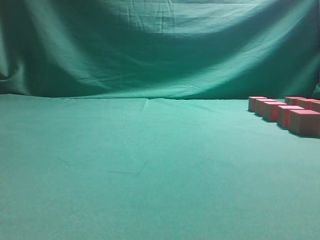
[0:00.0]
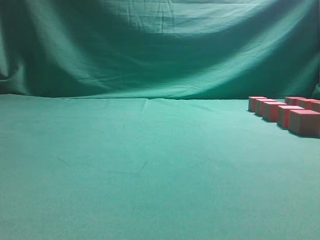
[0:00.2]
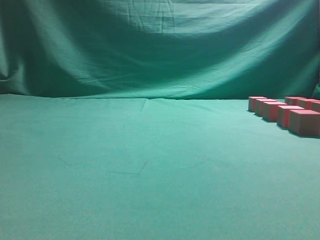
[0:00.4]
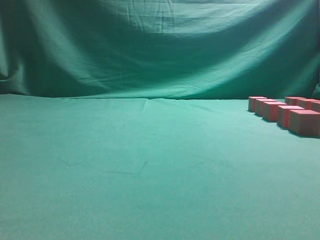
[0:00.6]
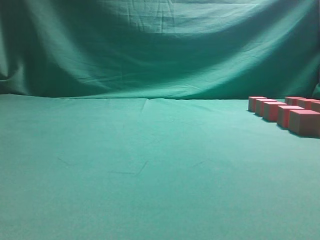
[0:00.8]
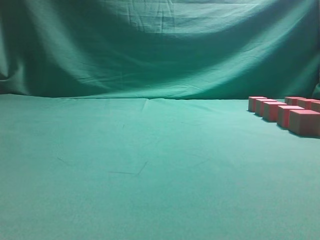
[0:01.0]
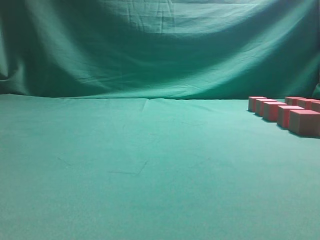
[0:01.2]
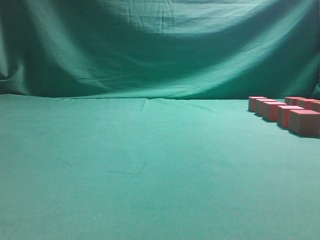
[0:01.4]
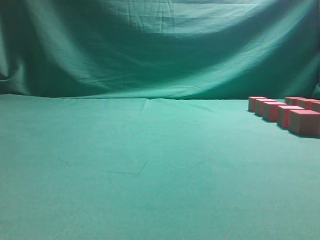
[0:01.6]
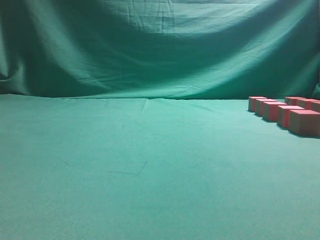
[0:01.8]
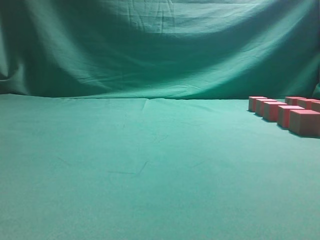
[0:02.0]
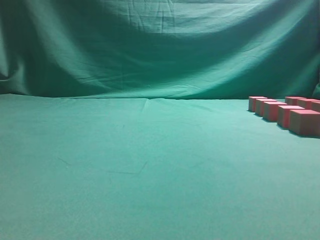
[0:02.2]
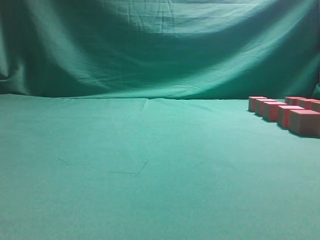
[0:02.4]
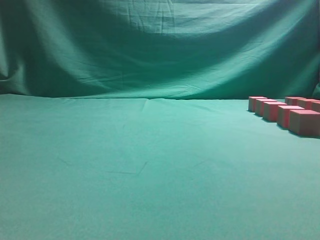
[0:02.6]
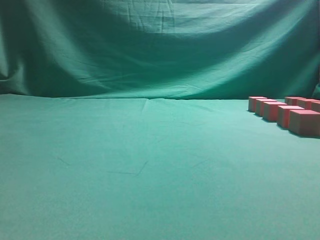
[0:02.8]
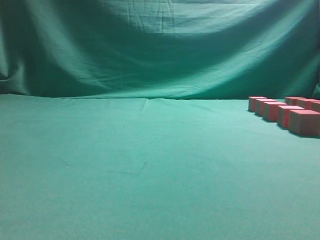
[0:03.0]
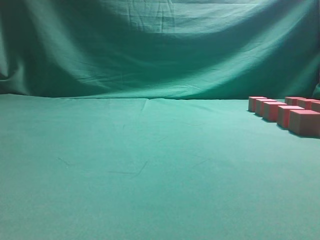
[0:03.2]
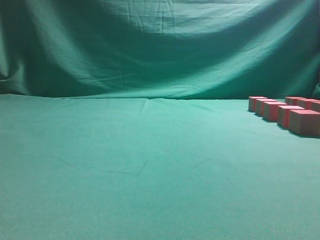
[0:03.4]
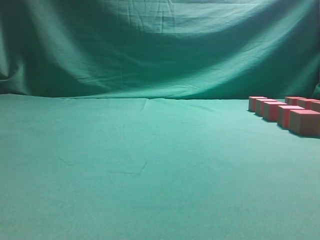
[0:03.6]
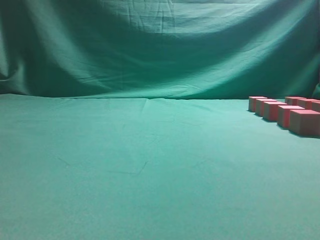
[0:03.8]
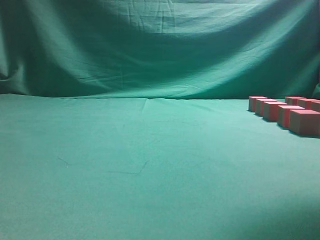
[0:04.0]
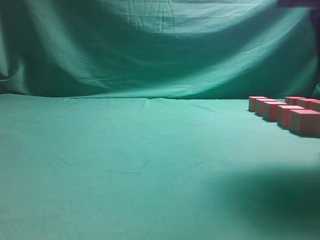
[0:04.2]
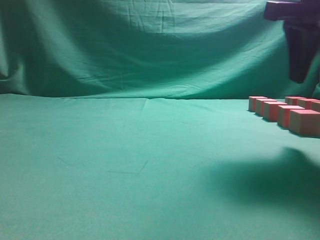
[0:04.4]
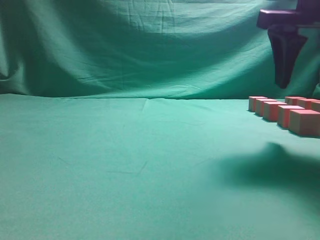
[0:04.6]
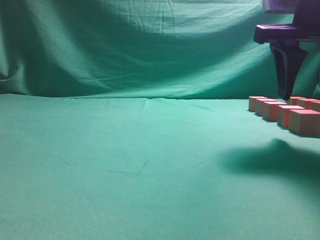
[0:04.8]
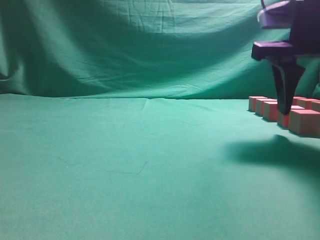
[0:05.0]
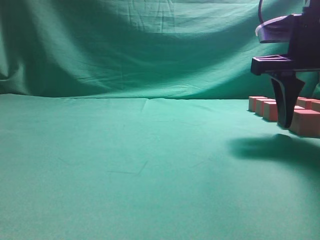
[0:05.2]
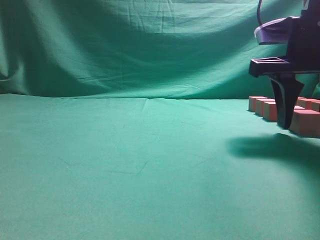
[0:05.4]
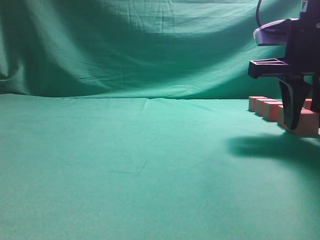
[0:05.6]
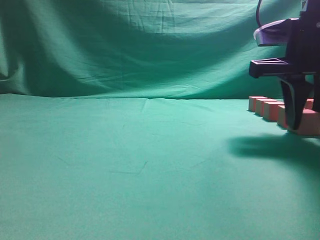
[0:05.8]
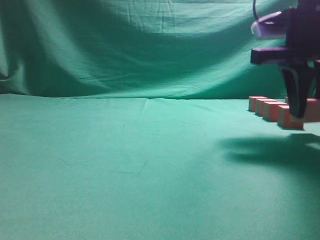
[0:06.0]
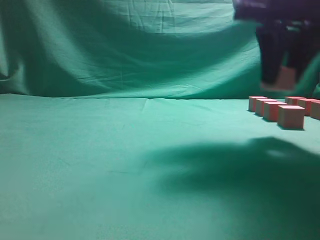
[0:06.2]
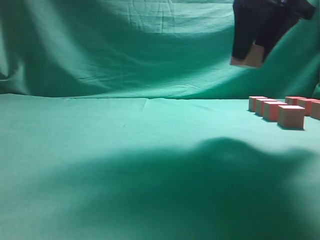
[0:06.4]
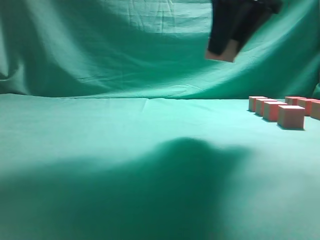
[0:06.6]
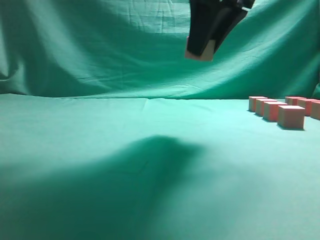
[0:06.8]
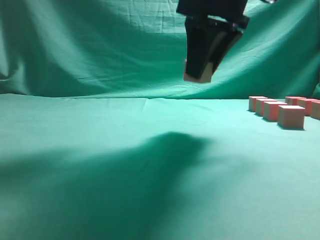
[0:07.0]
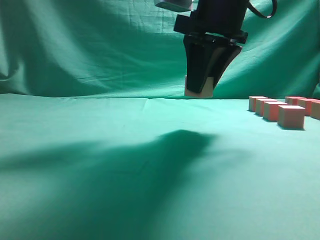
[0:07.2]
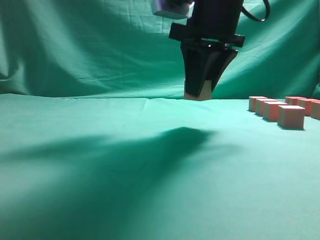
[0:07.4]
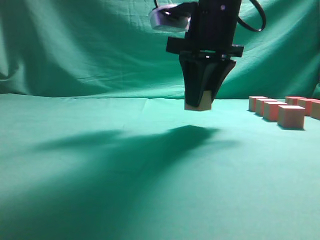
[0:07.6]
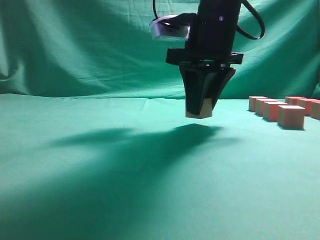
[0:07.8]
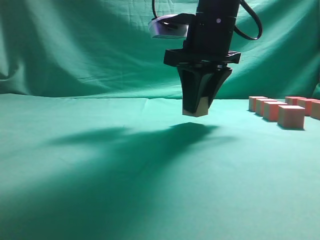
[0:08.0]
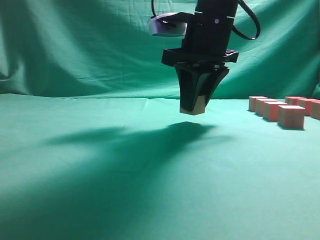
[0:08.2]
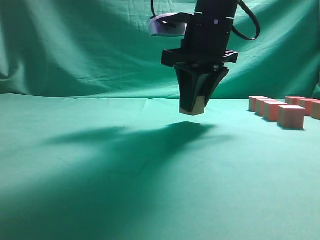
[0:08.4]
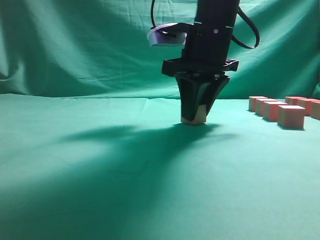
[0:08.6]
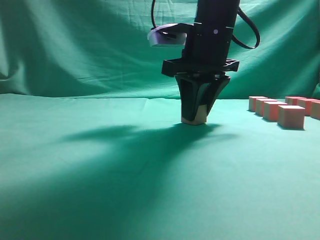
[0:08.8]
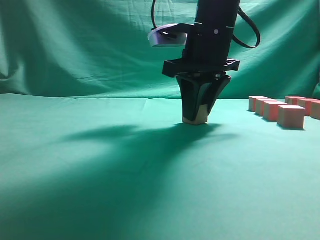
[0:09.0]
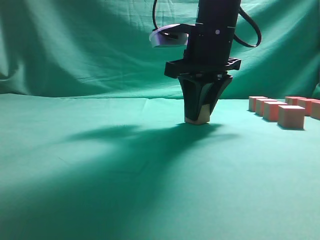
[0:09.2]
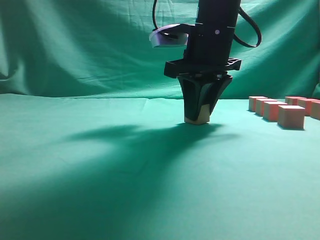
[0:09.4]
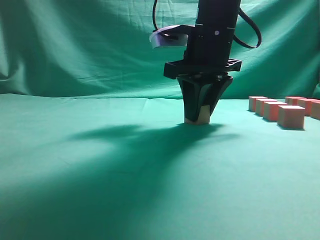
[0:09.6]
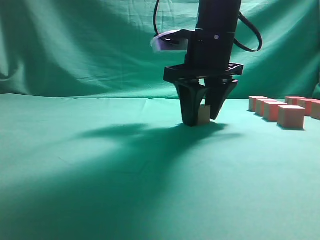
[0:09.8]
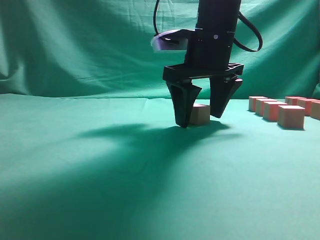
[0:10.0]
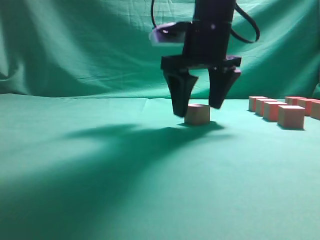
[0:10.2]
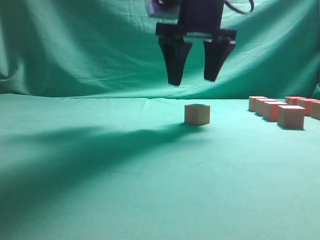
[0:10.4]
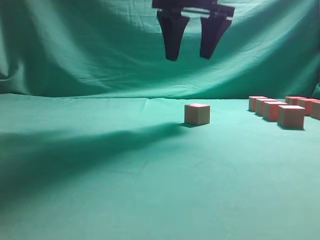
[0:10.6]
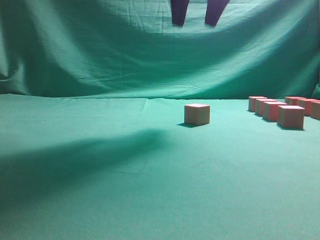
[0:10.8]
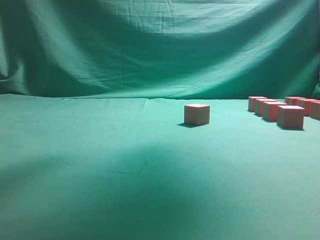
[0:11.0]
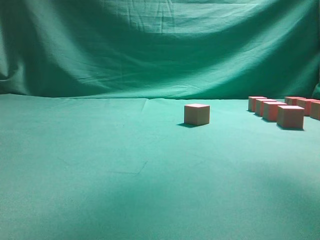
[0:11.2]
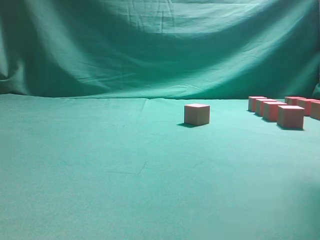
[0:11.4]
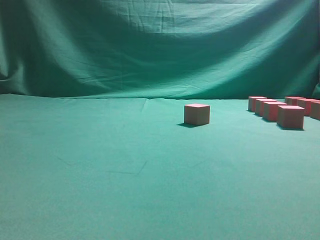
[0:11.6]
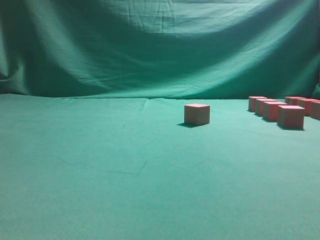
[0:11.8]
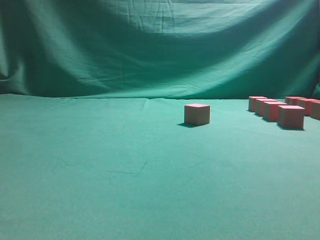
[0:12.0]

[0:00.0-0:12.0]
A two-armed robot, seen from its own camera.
Task of the whole recording: pick up the multiple cubes in two columns one by one and place them in another position on the table.
Step, 0:00.0 to 0:06.4: Pick up the block on the table.
Step, 0:06.6 to 0:10.6: Place the block at the correct position to assemble the letter S.
0:03.0 to 0:04.4: The right gripper heads forward and downward, covering roughly 20 cm, and opens its fingers.
0:06.0 to 0:07.6: The right gripper is displaced to the left by roughly 10 cm.
0:07.6 to 0:09.0: There are only small adjustments of the grippers.
0:09.0 to 0:10.4: The right gripper goes some 5 cm upward, and opens its fingers.
0:10.4 to 0:12.0: The right gripper is displaced to the right and backward by about 25 cm.

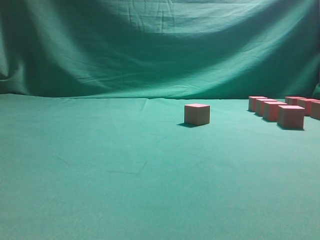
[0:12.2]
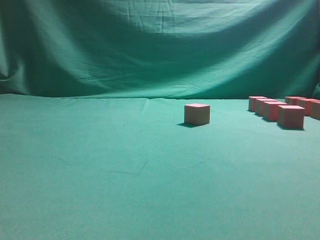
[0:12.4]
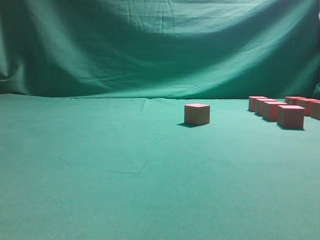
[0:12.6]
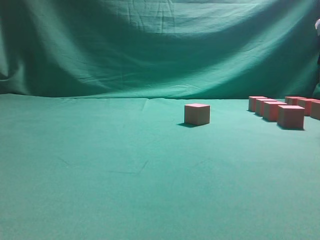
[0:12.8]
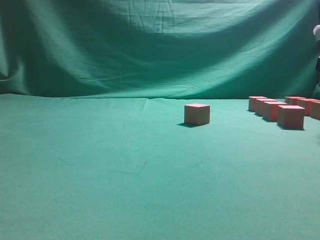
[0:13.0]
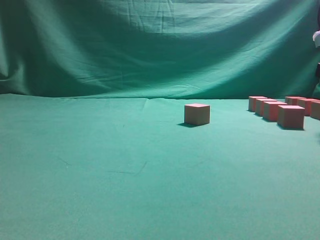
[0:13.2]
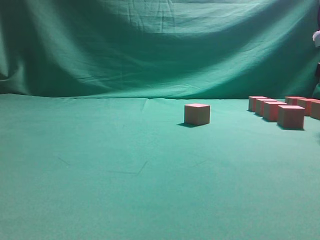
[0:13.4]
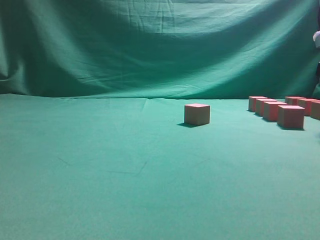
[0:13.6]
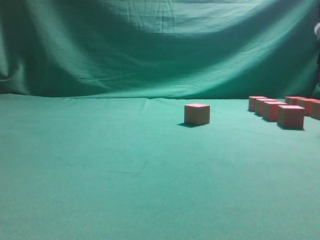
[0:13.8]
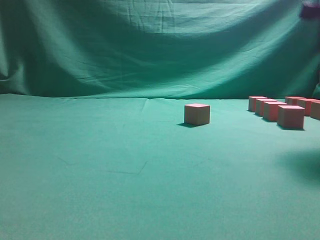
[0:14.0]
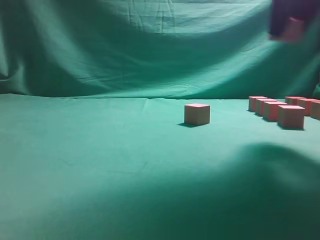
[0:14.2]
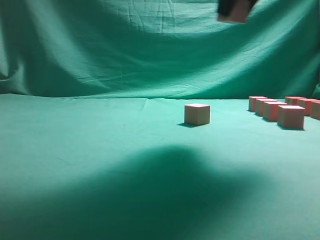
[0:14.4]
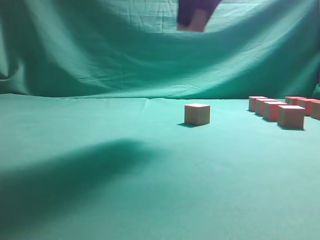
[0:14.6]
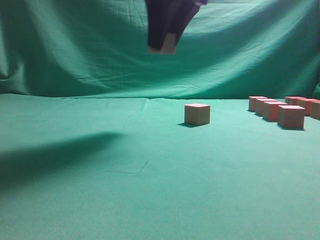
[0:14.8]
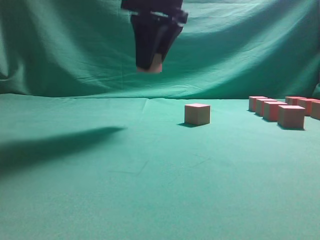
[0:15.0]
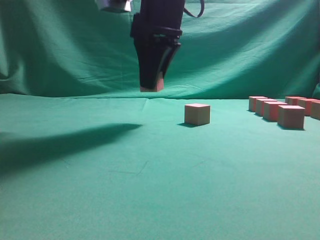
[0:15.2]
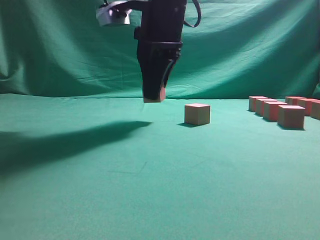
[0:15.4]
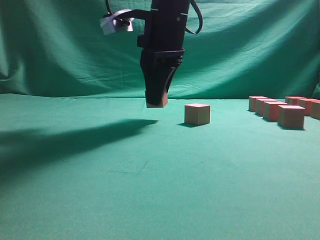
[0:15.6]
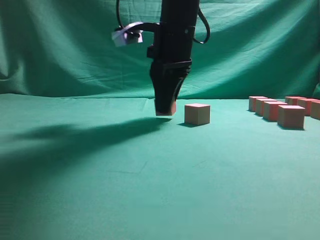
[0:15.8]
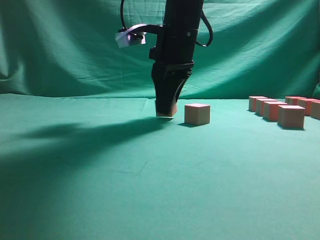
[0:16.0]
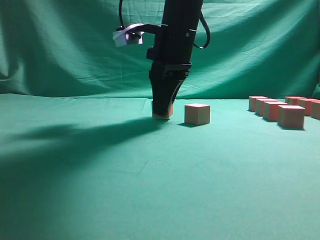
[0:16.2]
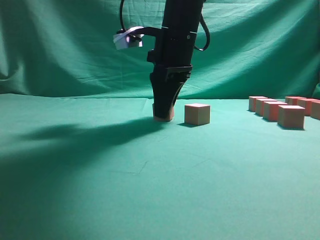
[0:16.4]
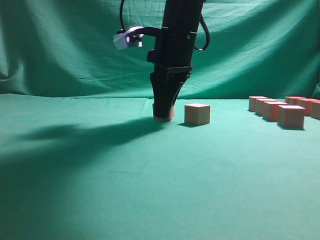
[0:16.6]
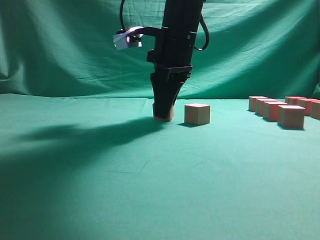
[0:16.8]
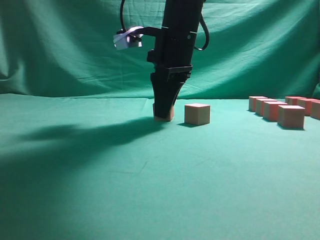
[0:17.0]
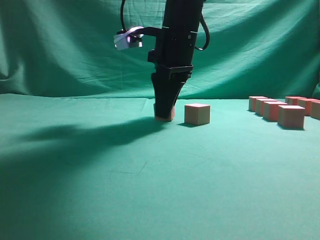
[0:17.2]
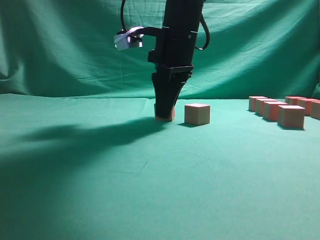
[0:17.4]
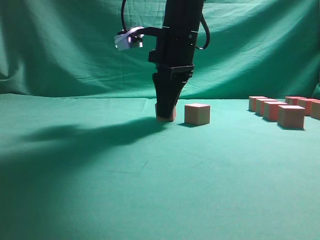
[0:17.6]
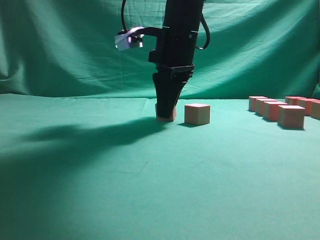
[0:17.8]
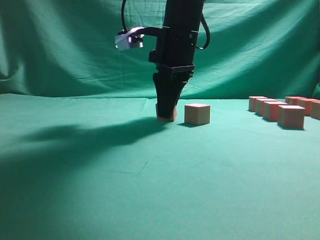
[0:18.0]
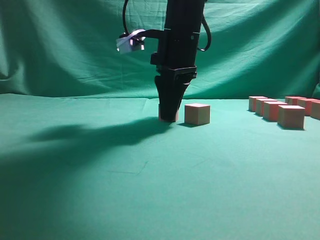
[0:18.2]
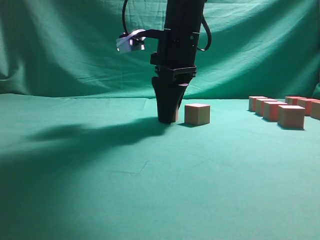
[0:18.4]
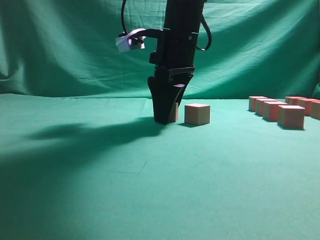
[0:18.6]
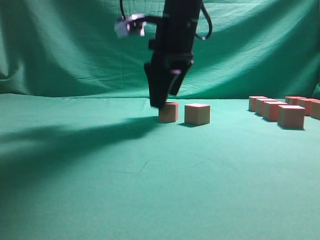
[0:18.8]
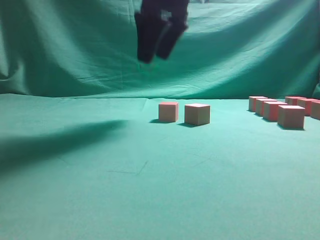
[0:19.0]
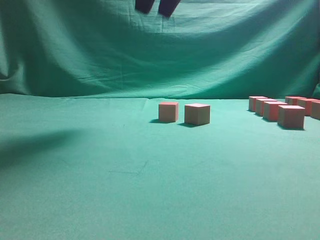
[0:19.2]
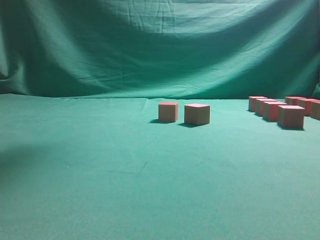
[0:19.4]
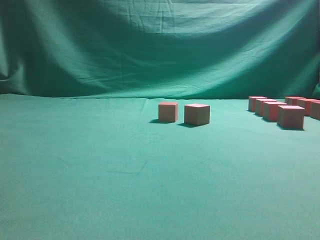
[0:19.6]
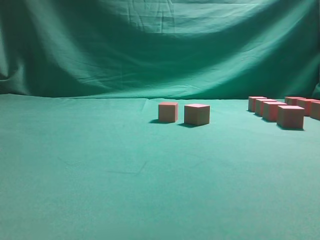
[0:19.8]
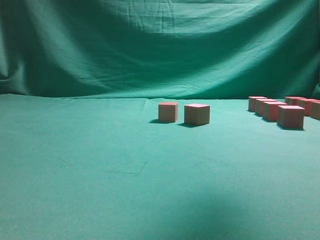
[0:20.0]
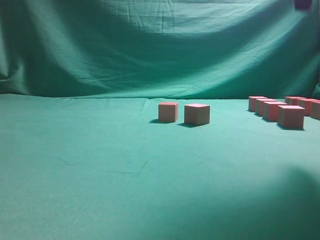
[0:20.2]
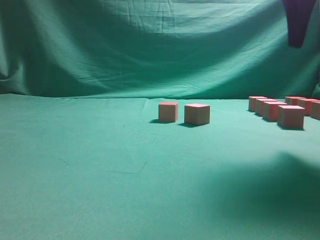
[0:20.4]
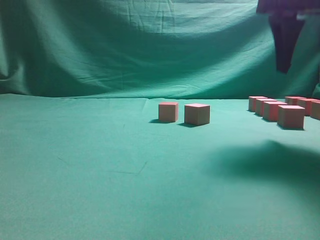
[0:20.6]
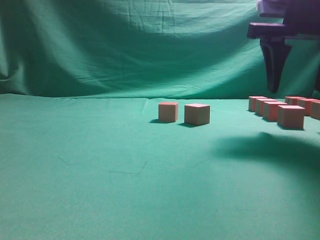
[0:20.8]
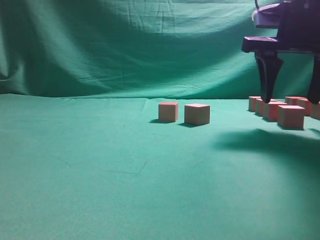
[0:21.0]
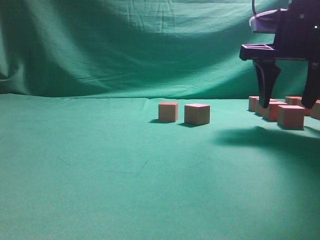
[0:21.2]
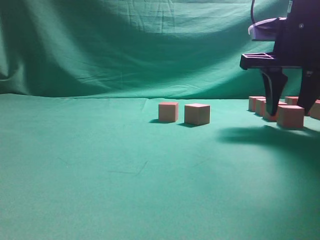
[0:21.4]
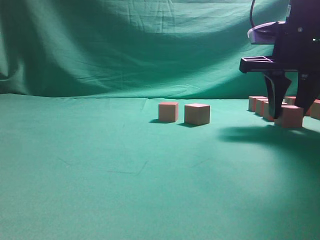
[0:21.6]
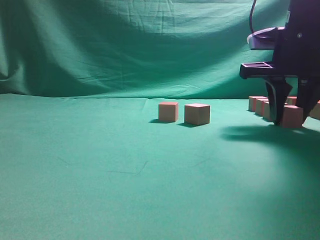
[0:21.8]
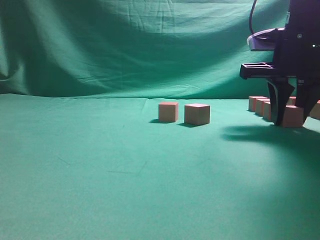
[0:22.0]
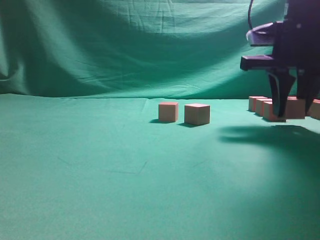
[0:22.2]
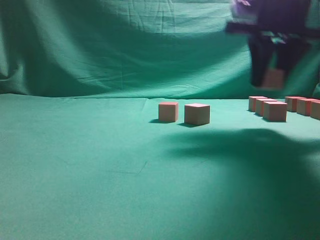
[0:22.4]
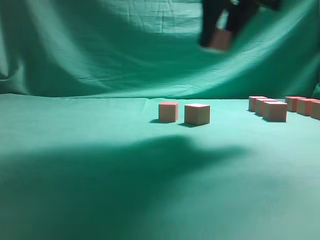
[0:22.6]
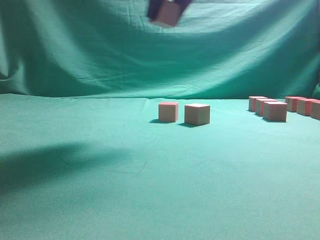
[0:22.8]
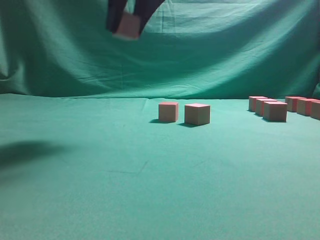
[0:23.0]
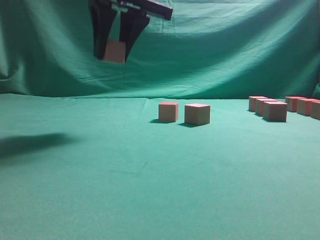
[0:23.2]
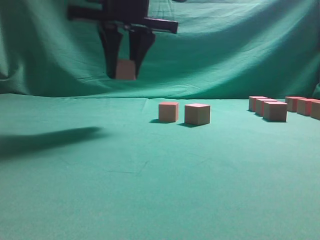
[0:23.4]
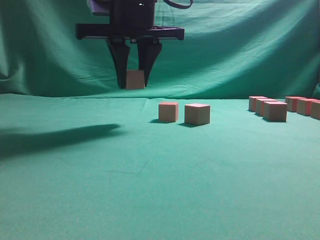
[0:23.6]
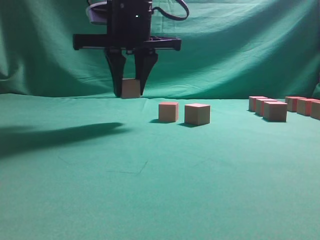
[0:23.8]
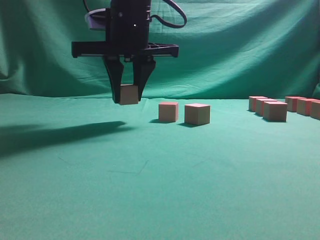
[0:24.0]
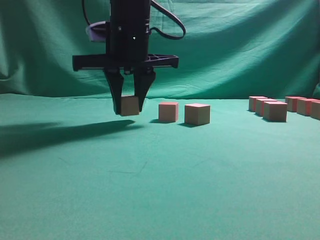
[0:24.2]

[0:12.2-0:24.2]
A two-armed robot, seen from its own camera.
Task of the whole recording: pick up the multiple cubes in two columns one by one and place them in another position on the table.
Step, 0:12.2 to 0:14.6: Pick up the block on the table.
Step, 0:14.8 to 0:19.0: Place the block at the correct position to assemble the letter S.
Step, 0:19.2 to 0:22.6: Pick up the block on the table.
0:13.8 to 0:15.2: The right gripper heads to the left, covering approximately 25 cm.
0:15.2 to 0:16.6: The right gripper shifts by some 5 cm.
0:16.6 to 0:18.2: Neither gripper changes place.
0:18.2 to 0:19.8: The right gripper shifts approximately 30 cm upward, to the right and backward.
0:19.8 to 0:21.2: The right gripper goes about 25 cm downward.
0:21.2 to 0:22.6: The right gripper shifts roughly 10 cm upward and to the left, and closes its fingers.
0:22.6 to 0:24.2: The right gripper travels to the left and downward by some 20 cm.
